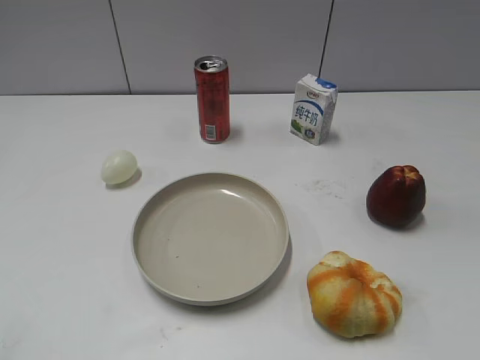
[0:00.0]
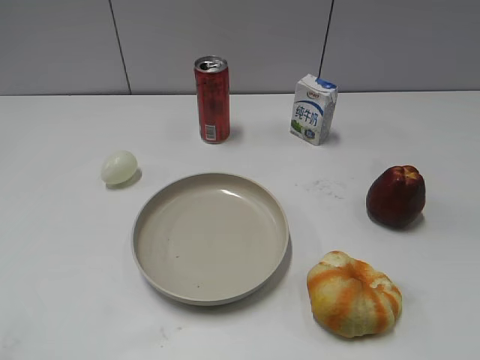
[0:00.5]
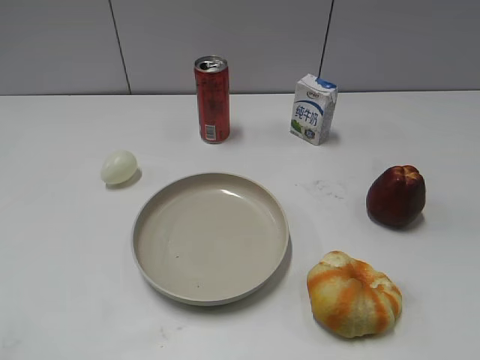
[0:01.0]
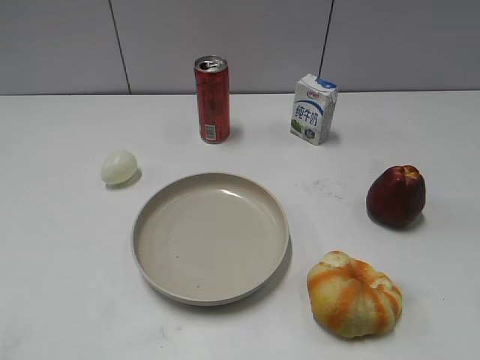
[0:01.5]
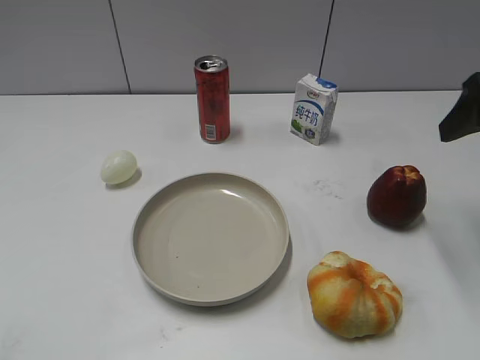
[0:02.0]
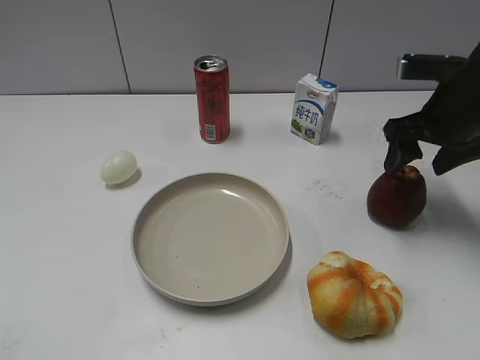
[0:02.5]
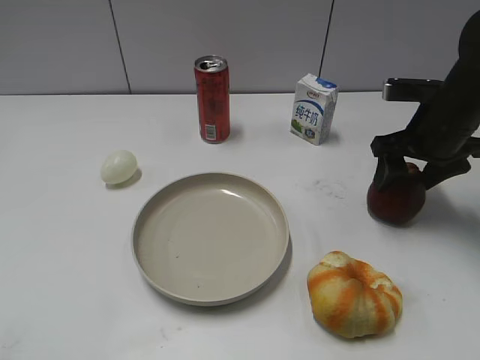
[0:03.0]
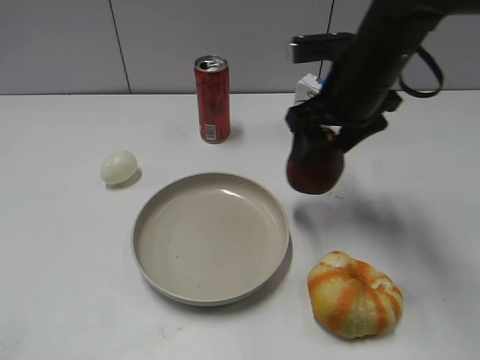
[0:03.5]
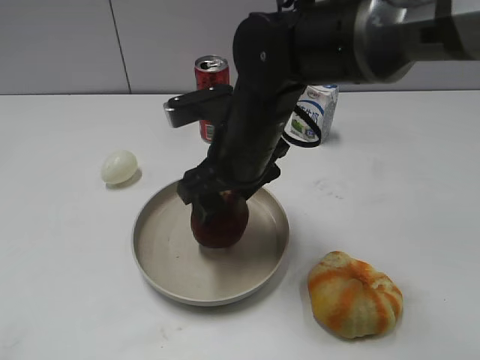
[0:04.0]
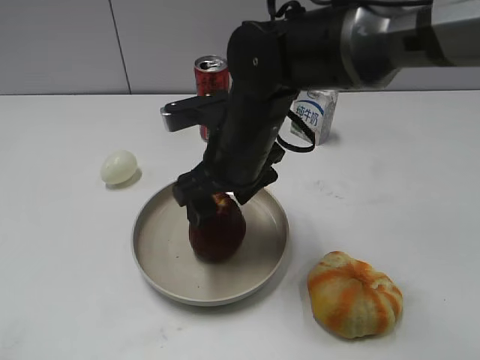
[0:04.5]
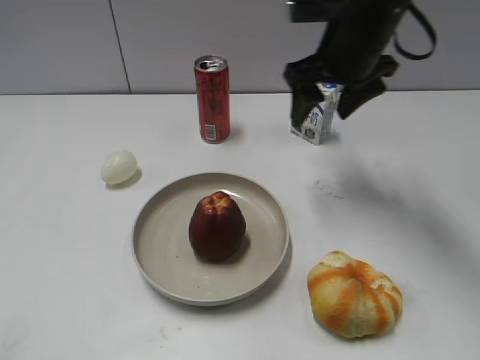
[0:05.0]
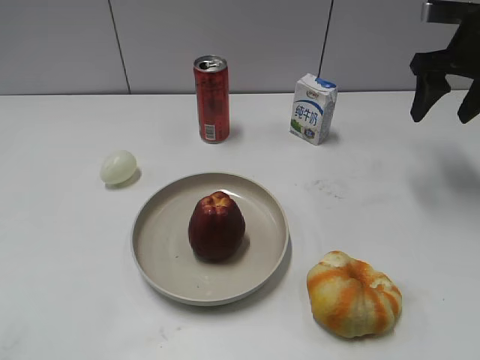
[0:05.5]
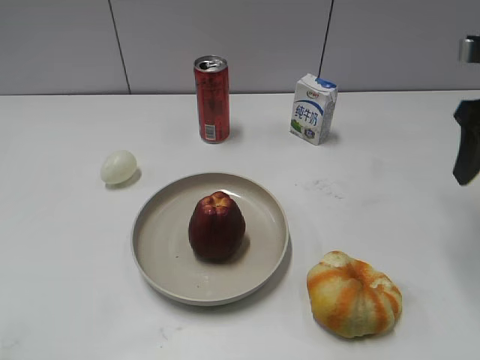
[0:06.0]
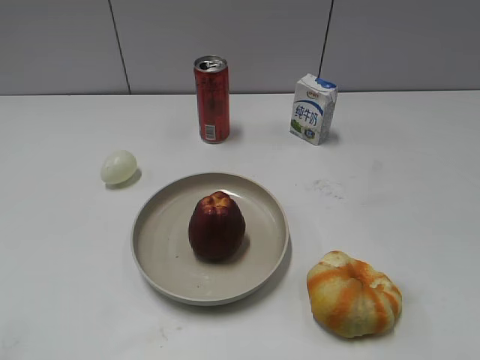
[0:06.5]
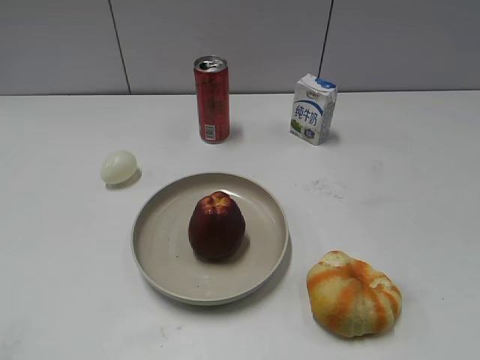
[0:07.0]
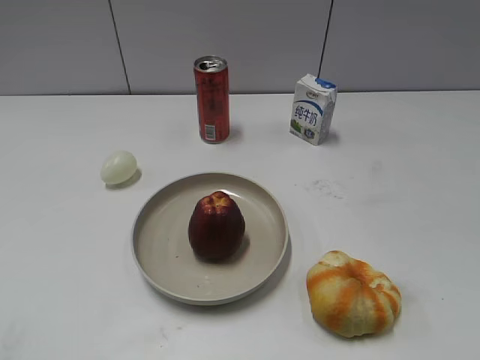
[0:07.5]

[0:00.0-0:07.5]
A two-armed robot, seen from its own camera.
Step, 0:01.0 to 0:02.5: Grasp the apple with right gripper.
Step, 0:03.5 to 0:04.5: Place the apple on the plate with right gripper.
0:02.0 to 0:04.0: The right gripper goes some 25 cm to the left.
0:04.0 to 0:05.5: The right gripper shifts some 30 cm to the right and forward.
0:05.5 to 0:07.5: The right gripper goes approximately 40 cm backward.
